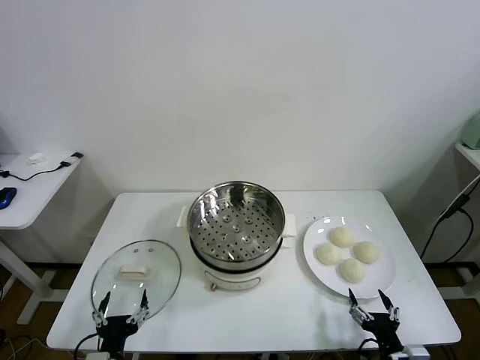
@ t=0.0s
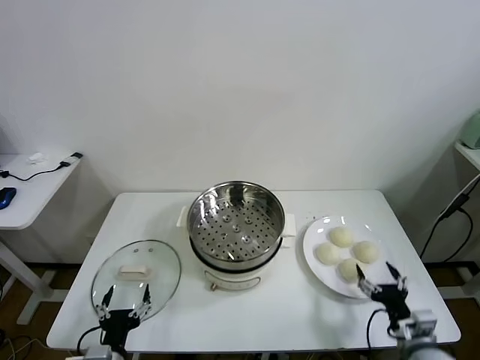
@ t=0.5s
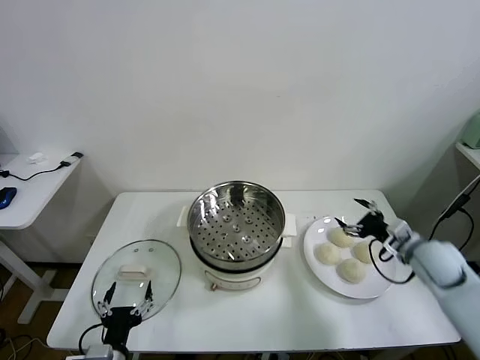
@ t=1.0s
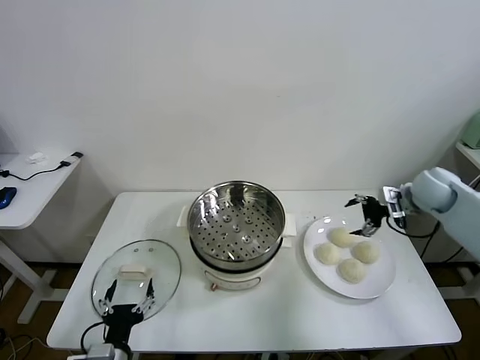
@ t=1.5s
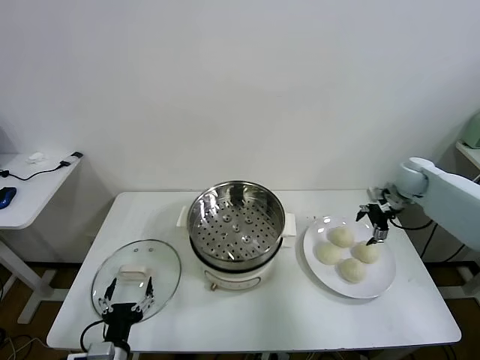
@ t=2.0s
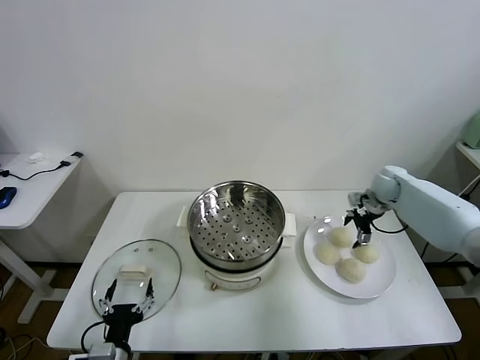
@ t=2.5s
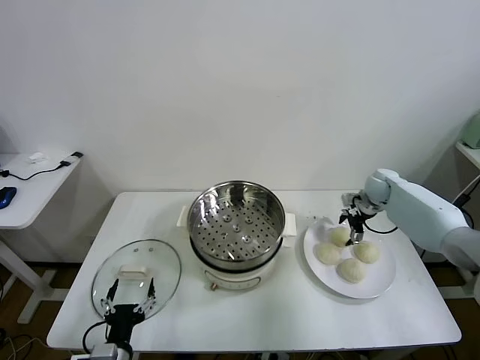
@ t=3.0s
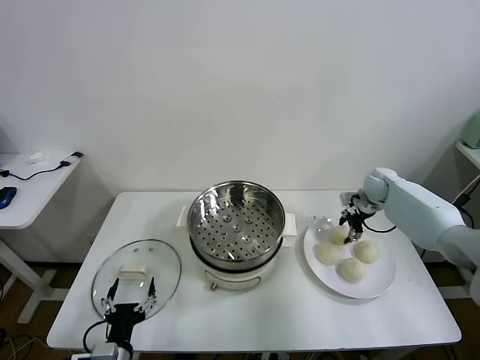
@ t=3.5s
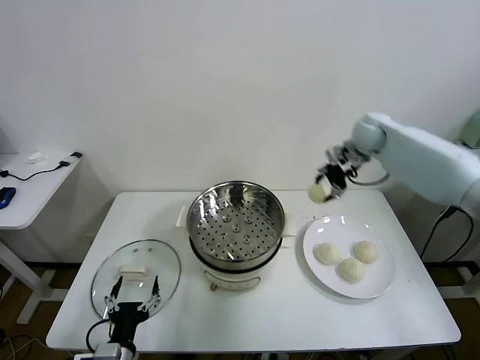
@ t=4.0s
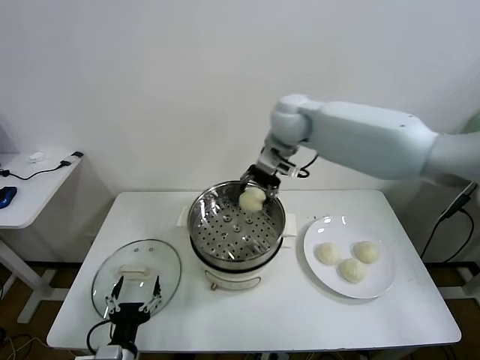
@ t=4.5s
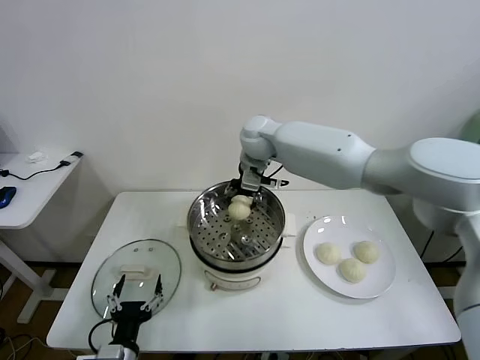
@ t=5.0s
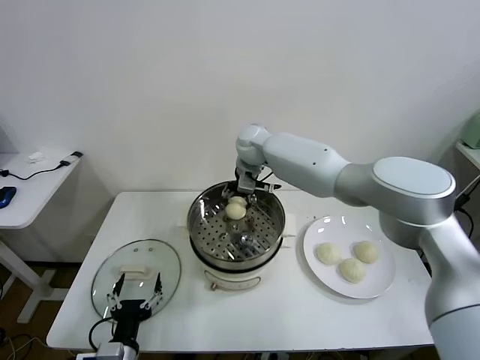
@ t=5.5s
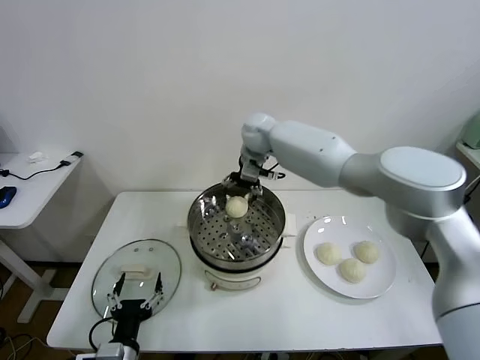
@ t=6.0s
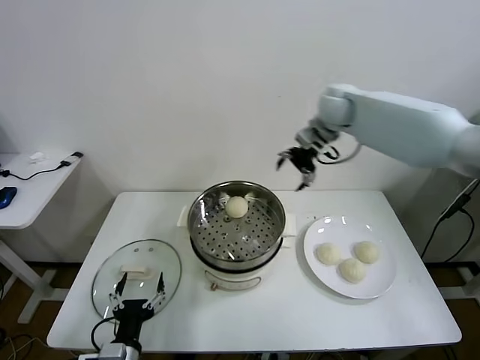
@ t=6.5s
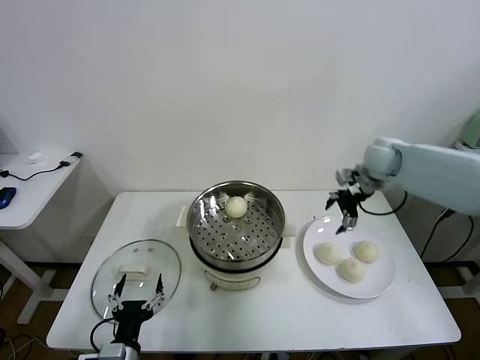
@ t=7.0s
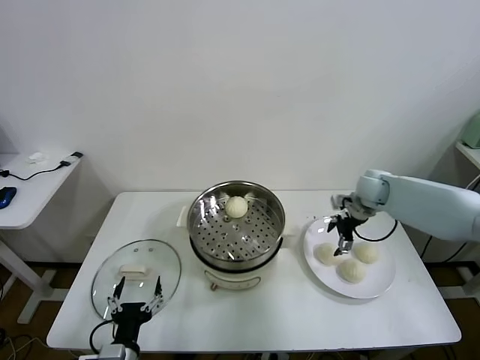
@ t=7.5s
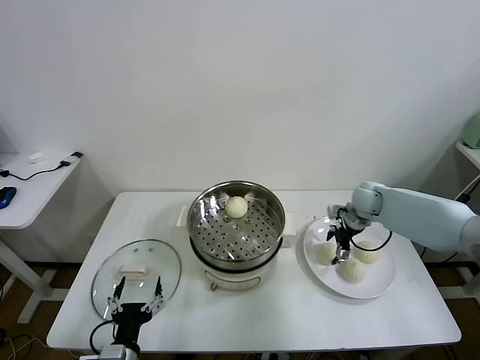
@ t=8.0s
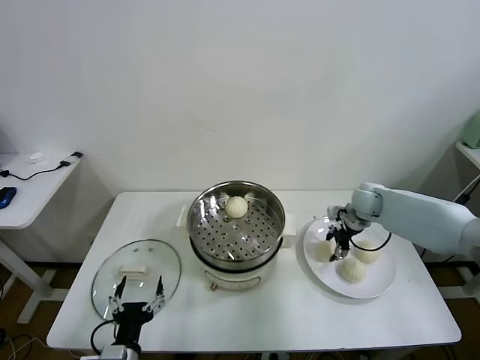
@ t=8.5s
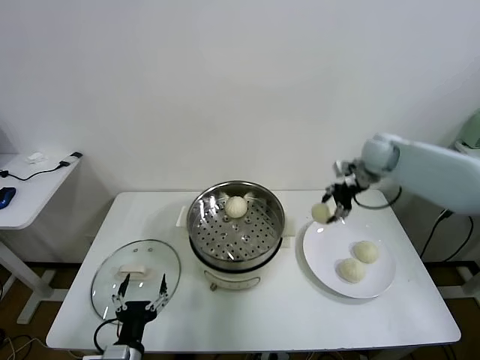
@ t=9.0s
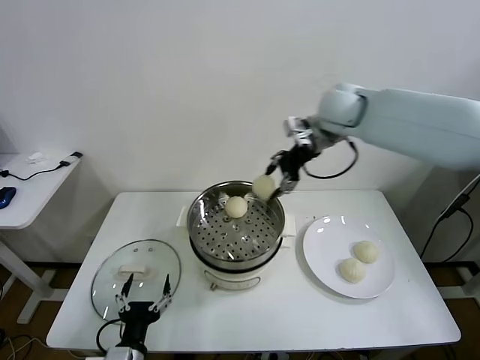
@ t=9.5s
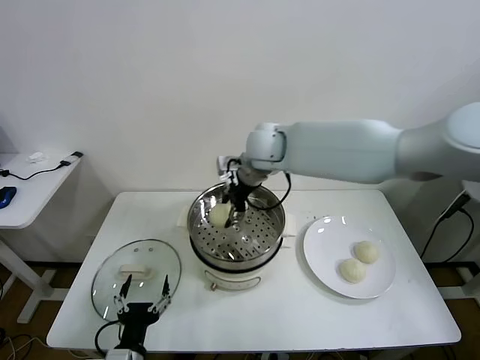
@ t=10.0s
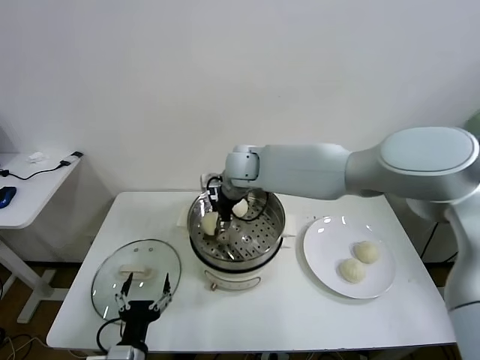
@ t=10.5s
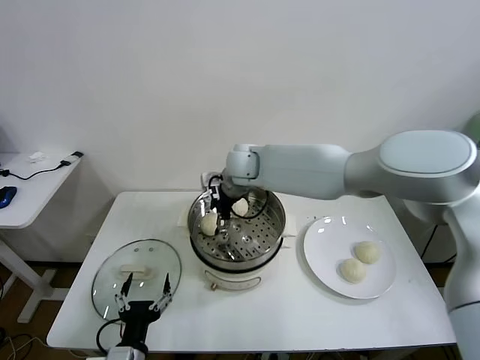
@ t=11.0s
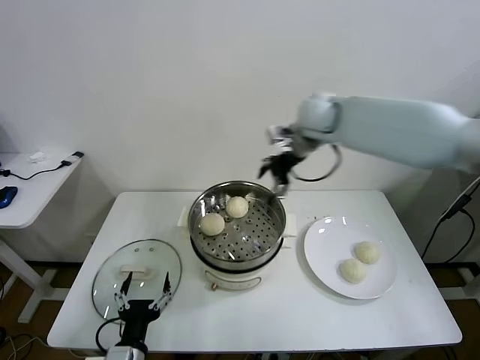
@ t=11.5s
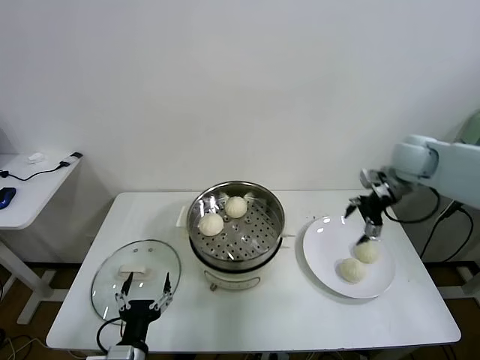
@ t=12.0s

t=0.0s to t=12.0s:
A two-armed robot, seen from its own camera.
Task of the whole recording: take steamed baozi put them in steamer.
Step, t=0.0s to t=3.0s: Grasp the baozi in the plate with right gripper.
Step, t=3.5s to t=5.5s: Place the baozi on the steamer with right gripper.
Step, t=6.5s to t=8.0s: Grasp the baozi in the plate with right gripper.
Step, t=8.5s to t=10.5s: Place the baozi on the steamer with right gripper.
t=2.0s to t=4.0s: The right gripper is displaced to the left and upward by approximately 20 cm, and closes its fingers.
t=4.0s to t=6.0s: The right gripper travels to the left by some 20 cm, and opens its fingers.
t=6.0s to t=8.0s: The right gripper travels to the right and downward by some 35 cm.
t=8.0s to t=10.0s: The right gripper travels to the left and upward by some 35 cm, and closes its fingers.
t=10.0s to t=12.0s: The right gripper heads to the right, covering about 35 cm, and opens its fingers.

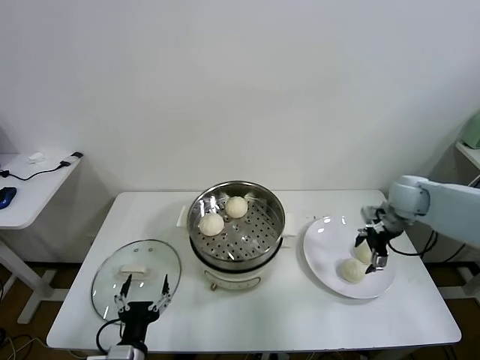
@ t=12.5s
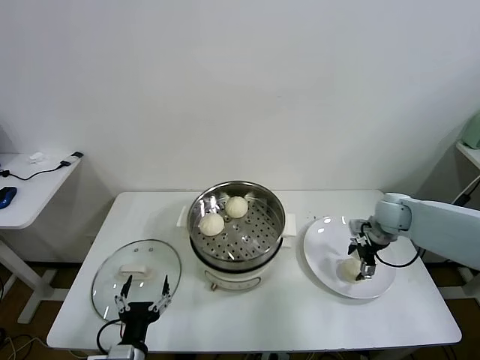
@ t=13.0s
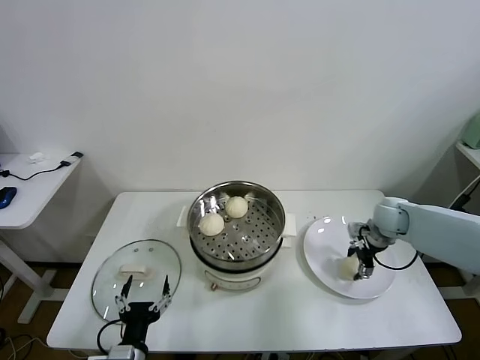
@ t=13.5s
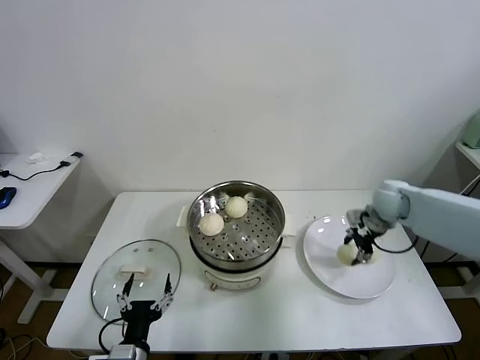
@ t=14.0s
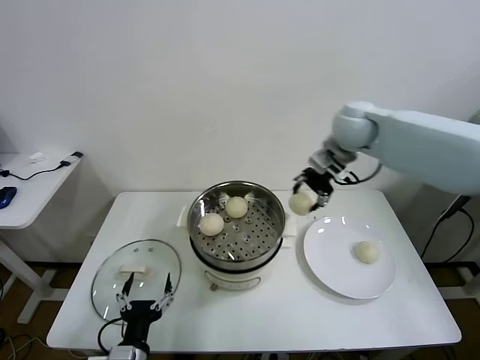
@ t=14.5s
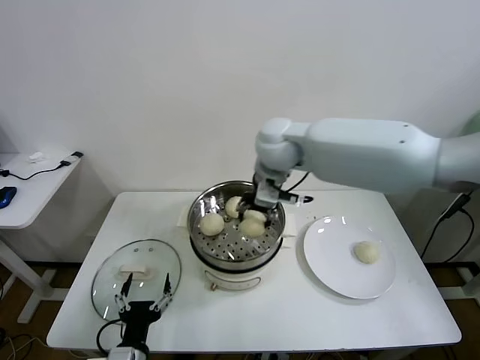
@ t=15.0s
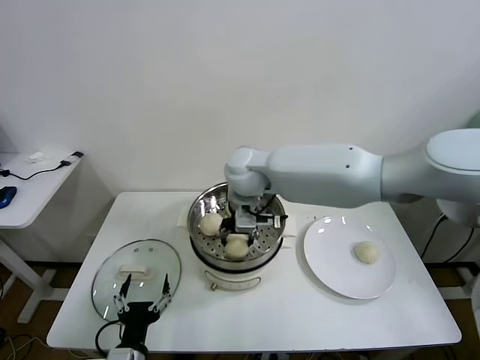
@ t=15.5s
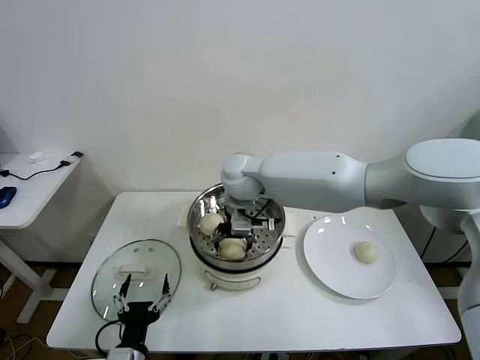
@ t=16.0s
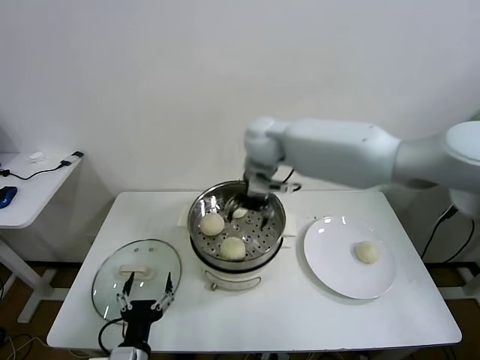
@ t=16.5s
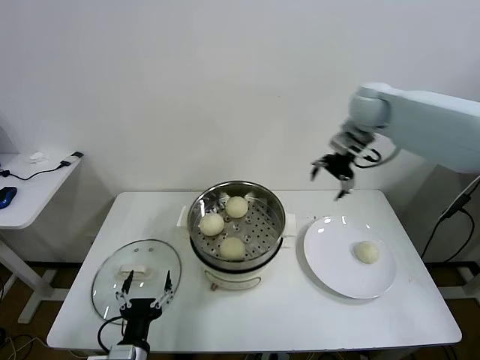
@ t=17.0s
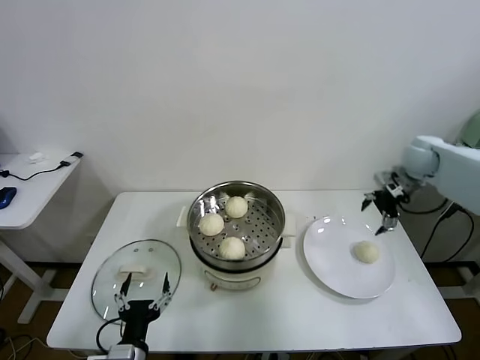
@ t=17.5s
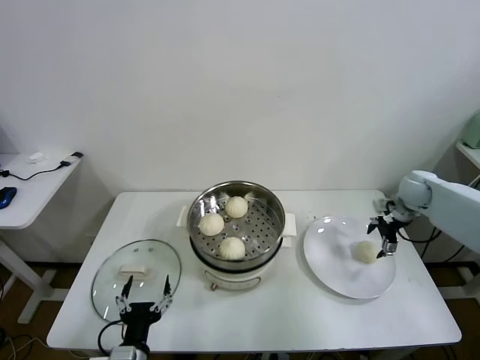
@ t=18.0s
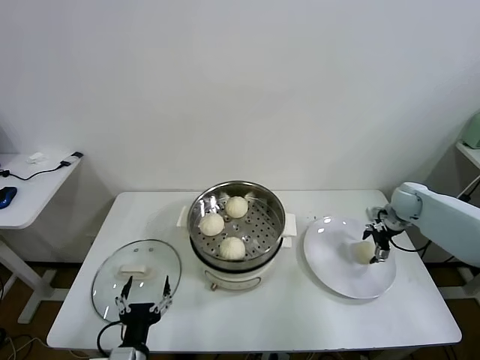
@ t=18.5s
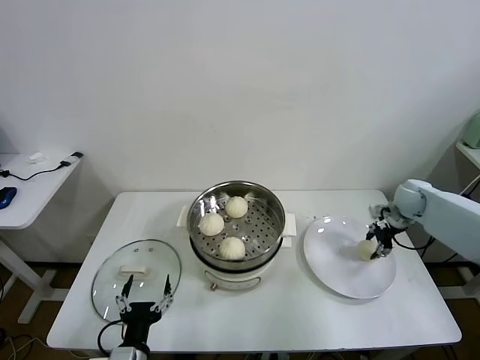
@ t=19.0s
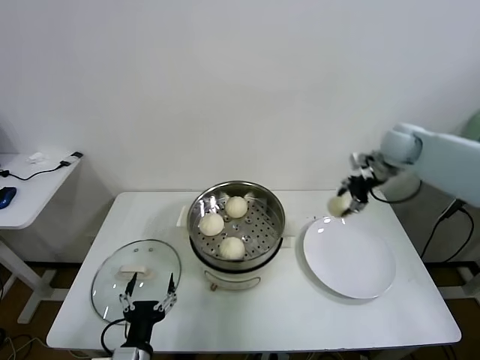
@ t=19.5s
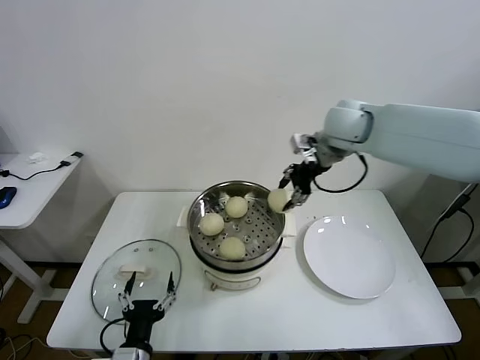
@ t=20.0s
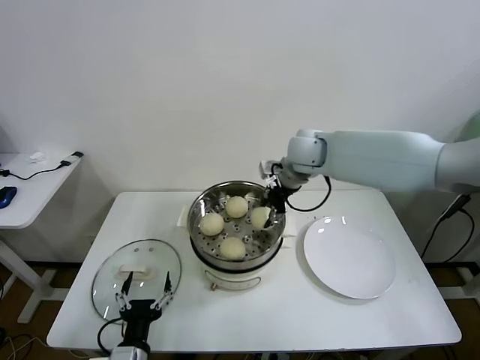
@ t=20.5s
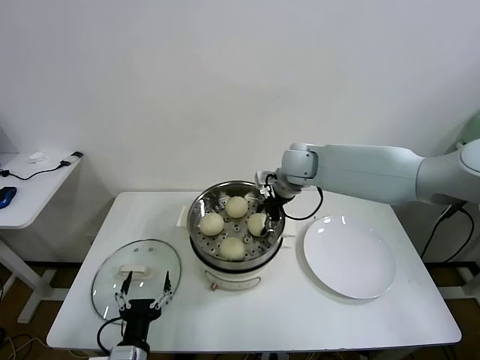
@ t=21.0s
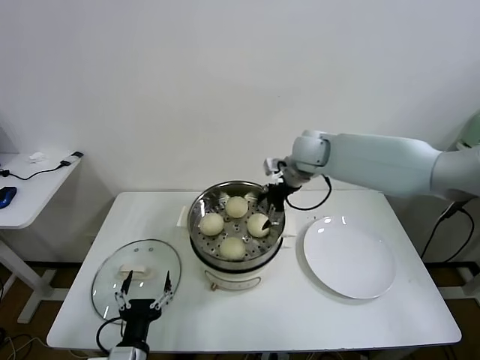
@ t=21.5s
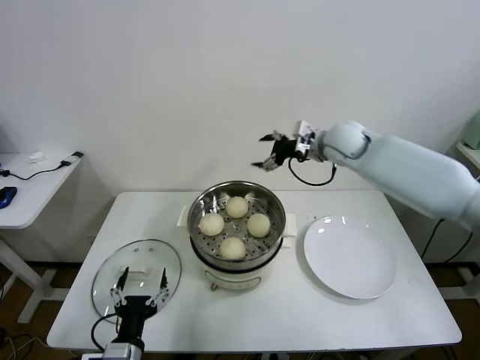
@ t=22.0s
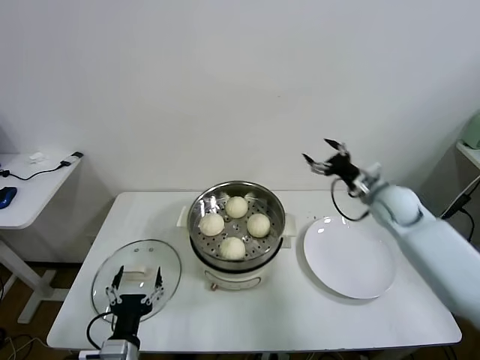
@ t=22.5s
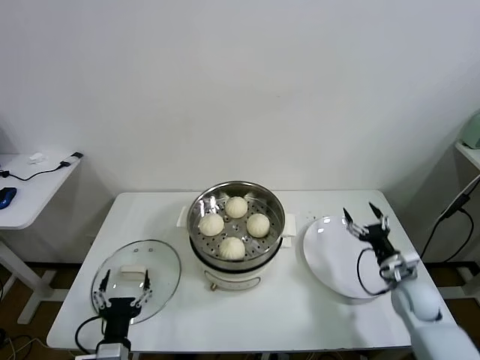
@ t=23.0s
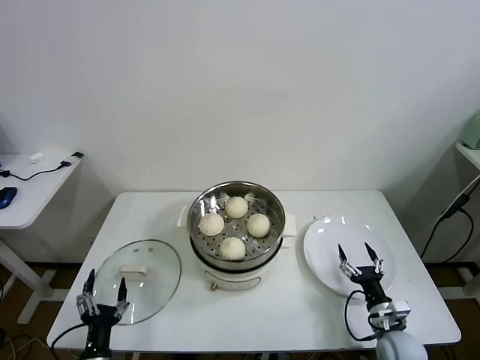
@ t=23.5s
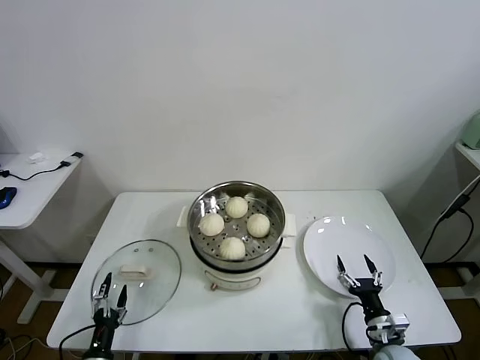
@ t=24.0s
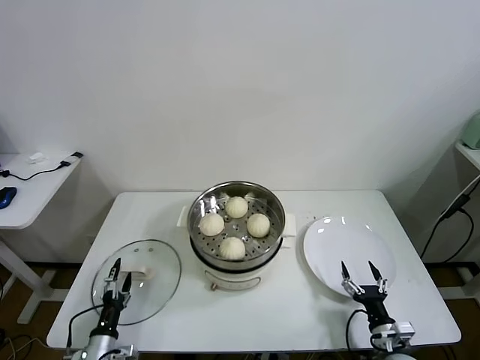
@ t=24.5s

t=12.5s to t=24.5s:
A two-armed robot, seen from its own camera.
Task of the whole recording: take steamed baozi put them in steamer.
Step, t=14.0s to t=16.0s: Place the baozi on the steamer with right gripper.
Step, t=16.5s to t=18.5s: Grasp the baozi in the plate with right gripper.
Step, t=19.0s to t=21.0s: Place the baozi on the steamer with right gripper.
t=12.5s to t=14.5s: The right gripper goes approximately 25 cm to the left and upward, and closes.
t=14.5s to t=16.5s: The right gripper moves to the left, approximately 15 cm, and opens its fingers.
t=16.5s to t=18.5s: The right gripper is displaced to the right and downward by roughly 40 cm.
t=18.5s to t=20.5s: The right gripper heads to the left and upward, covering approximately 35 cm, and closes.
t=20.5s to t=22.5s: The right gripper goes about 25 cm to the right and downward, and opens up.
t=22.5s to t=24.5s: The left gripper moves downward and to the left, approximately 20 cm. Meanwhile the right gripper shifts about 40 cm backward and downward.

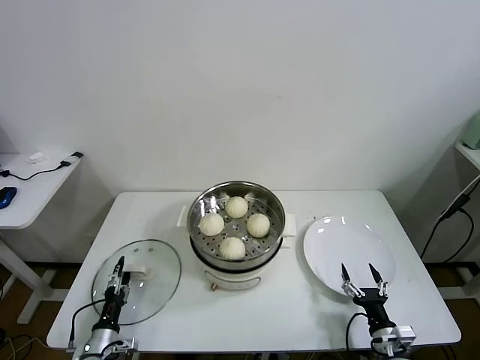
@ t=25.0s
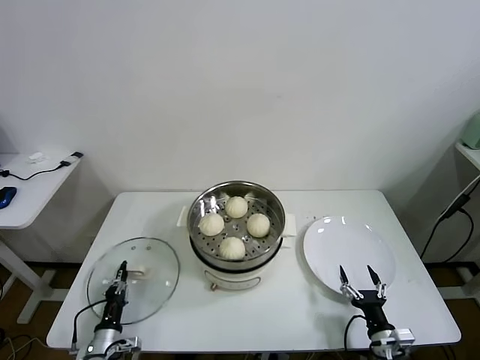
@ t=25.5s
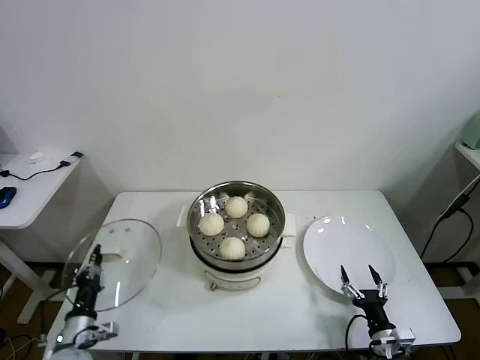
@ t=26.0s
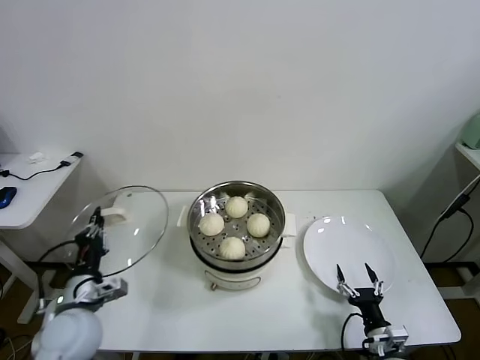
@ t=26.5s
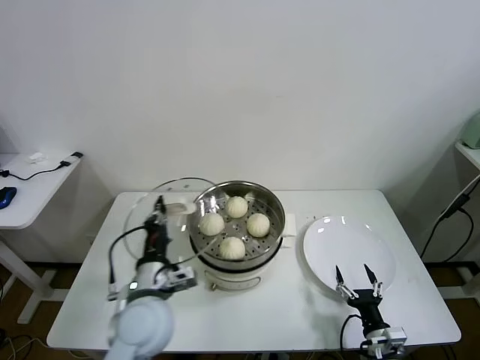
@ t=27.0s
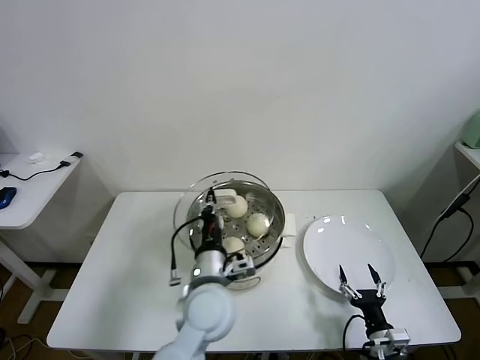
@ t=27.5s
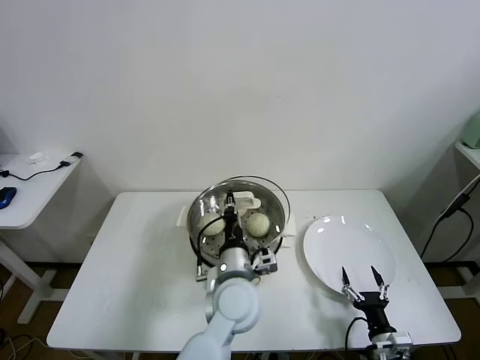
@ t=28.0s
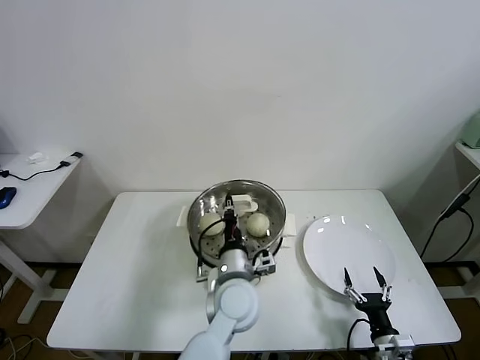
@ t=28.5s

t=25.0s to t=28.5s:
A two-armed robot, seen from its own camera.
Task of the whole recording: take steamed baozi put them in steamer.
t=25.0s to t=27.0s: The left gripper heads upward and to the right, covering some 30 cm, and closes its fingers.
t=27.0s to t=28.5s: The left gripper shifts roughly 20 cm to the right.
